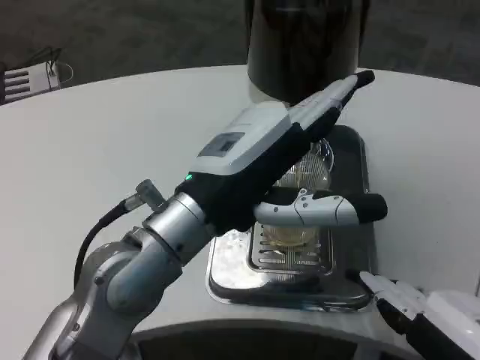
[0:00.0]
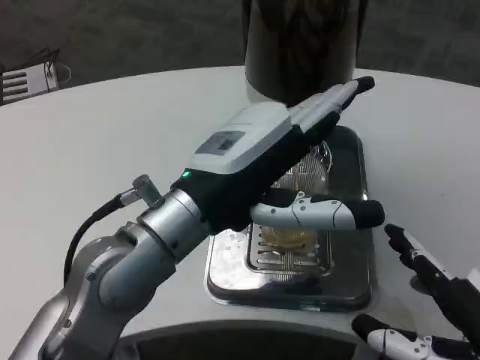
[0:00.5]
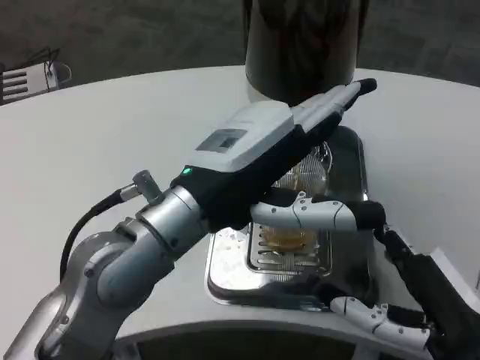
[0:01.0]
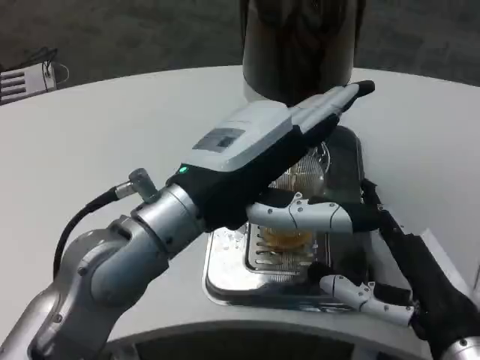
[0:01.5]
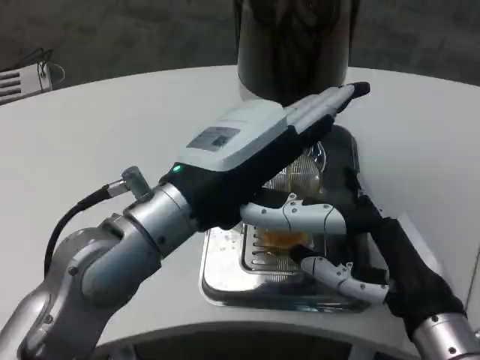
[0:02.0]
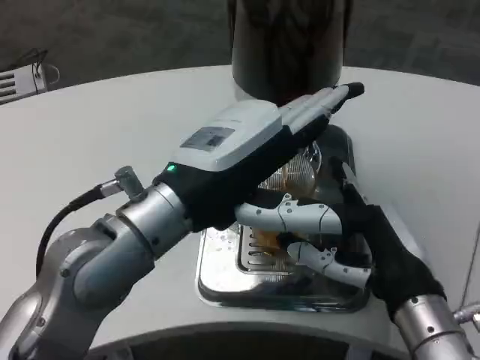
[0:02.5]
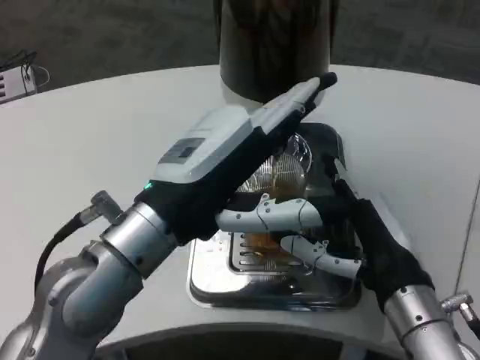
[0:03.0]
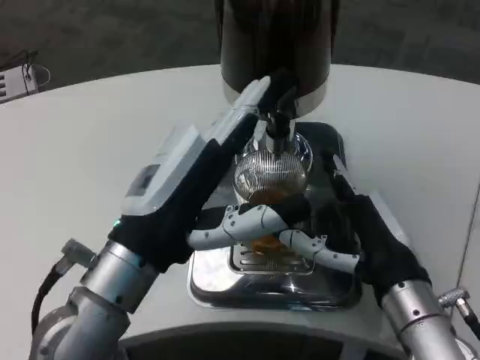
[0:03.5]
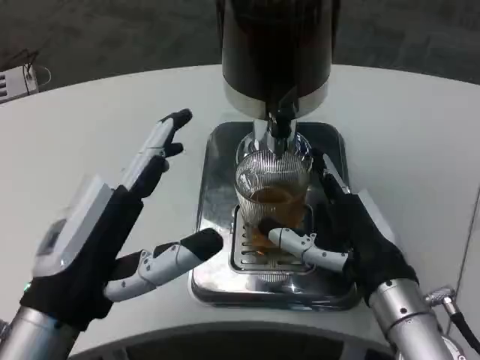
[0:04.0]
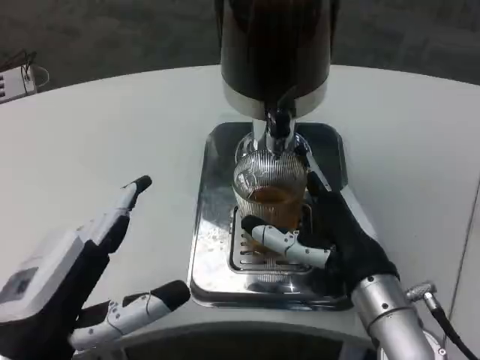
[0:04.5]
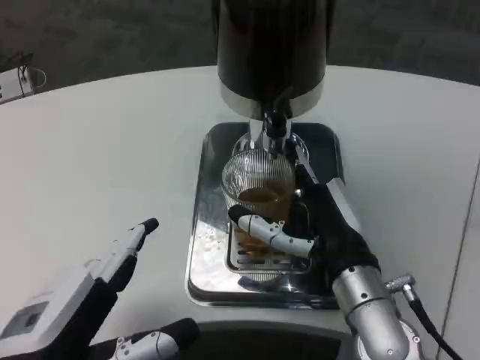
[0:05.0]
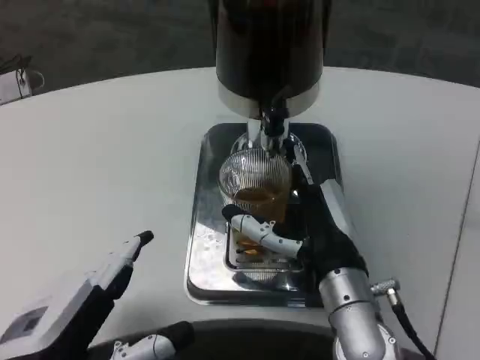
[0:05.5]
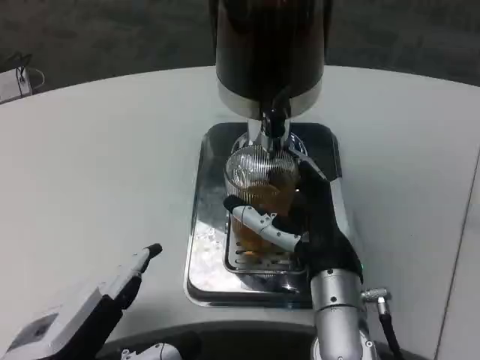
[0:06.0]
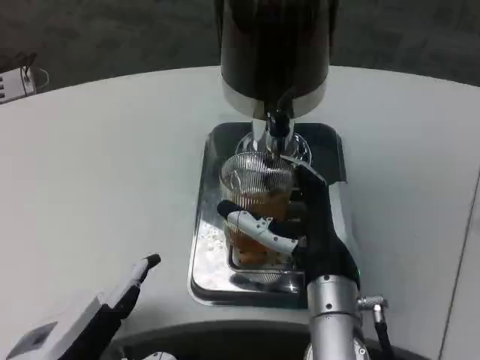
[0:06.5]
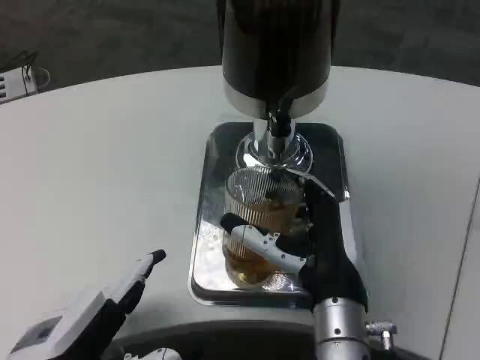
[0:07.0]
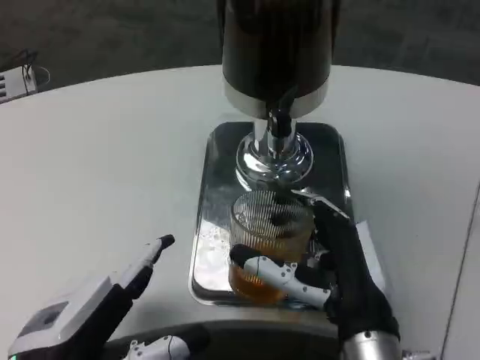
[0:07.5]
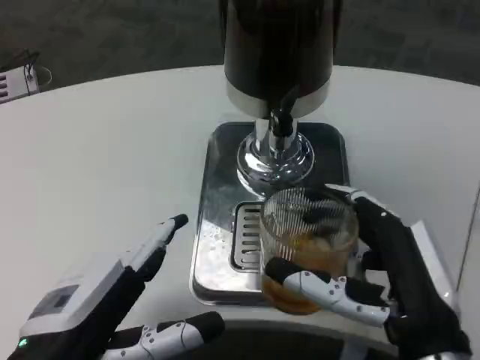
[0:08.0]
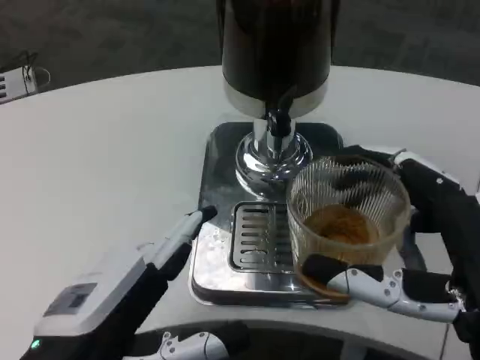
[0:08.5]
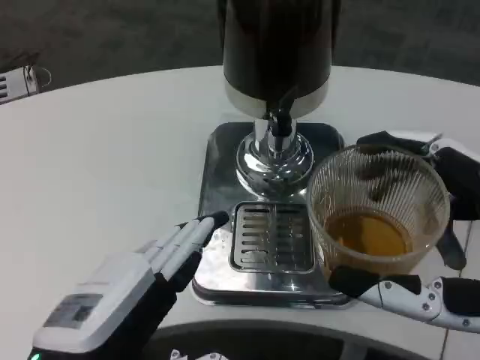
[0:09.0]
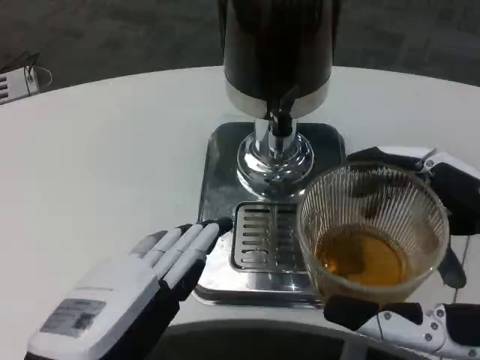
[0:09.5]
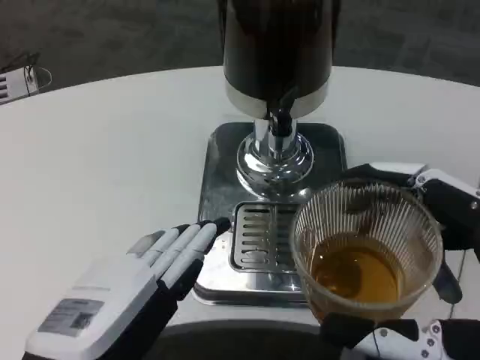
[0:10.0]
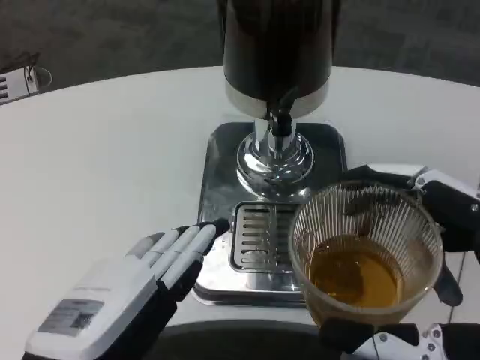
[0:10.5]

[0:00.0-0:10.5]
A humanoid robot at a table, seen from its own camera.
Task of the whole recording: Grasp the cup under the faucet to collect the drink, then remove the cup.
0:00.0 to 0:02.0: The right hand heads forward, covering about 10 cm.
0:02.0 to 0:04.0: The left hand goes about 15 cm downward, to the left and backward.
0:04.0 to 0:06.5: The left hand shifts some 5 cm backward, while the right hand goes about 10 cm to the left.
0:06.5 to 0:08.5: The right hand is displaced backward and to the right by approximately 15 cm.
